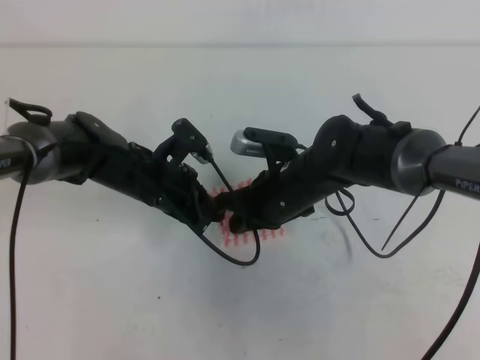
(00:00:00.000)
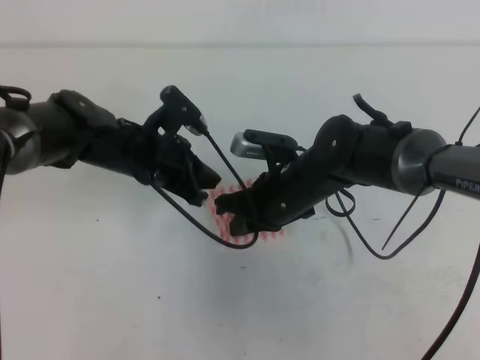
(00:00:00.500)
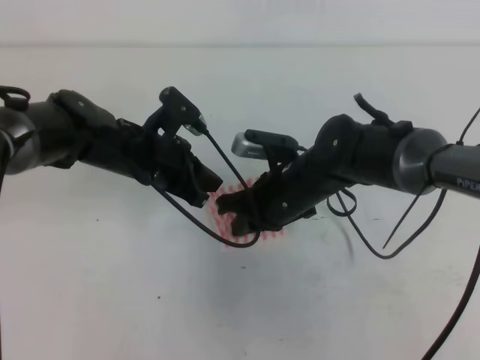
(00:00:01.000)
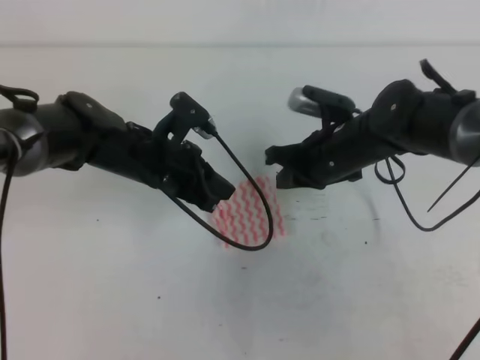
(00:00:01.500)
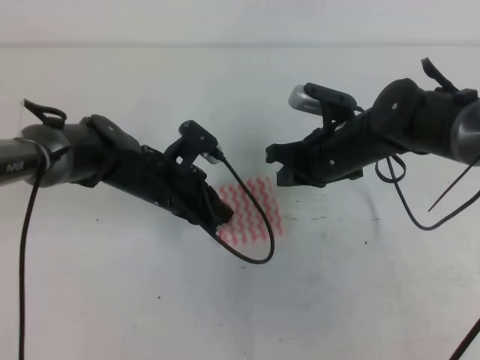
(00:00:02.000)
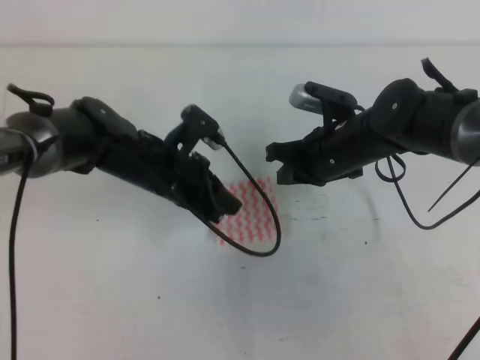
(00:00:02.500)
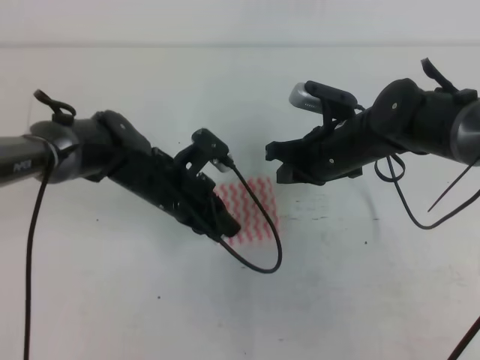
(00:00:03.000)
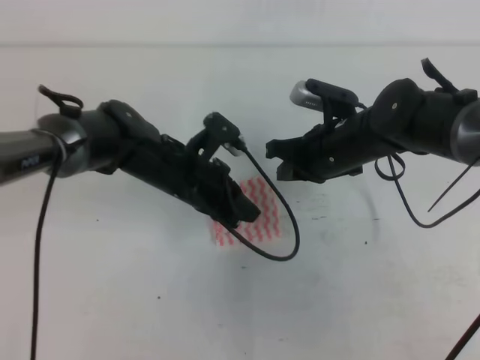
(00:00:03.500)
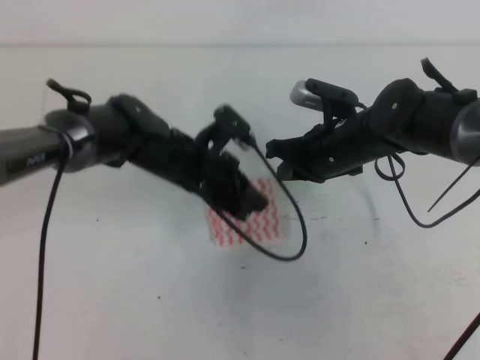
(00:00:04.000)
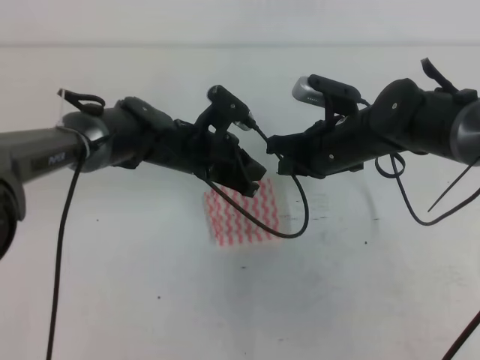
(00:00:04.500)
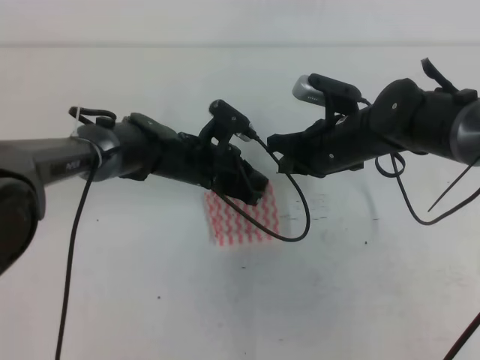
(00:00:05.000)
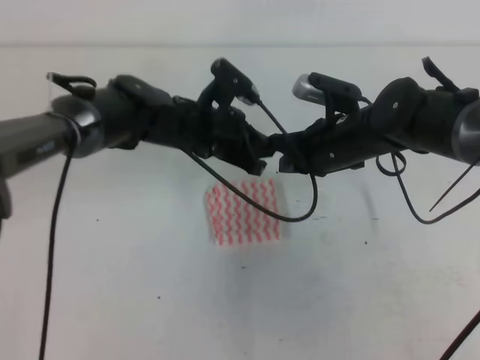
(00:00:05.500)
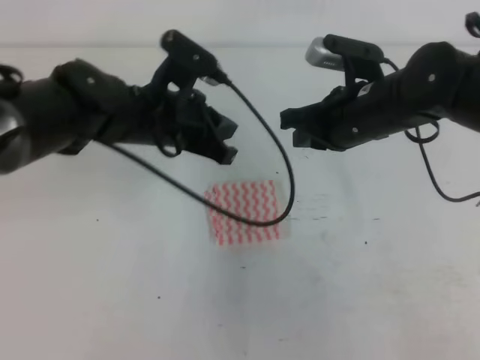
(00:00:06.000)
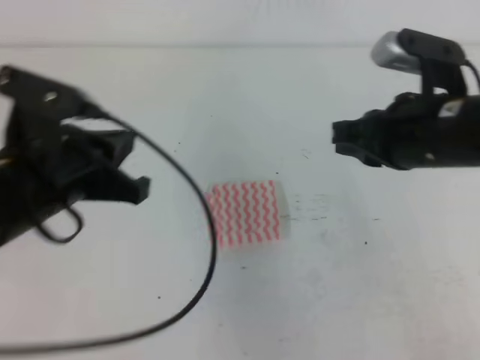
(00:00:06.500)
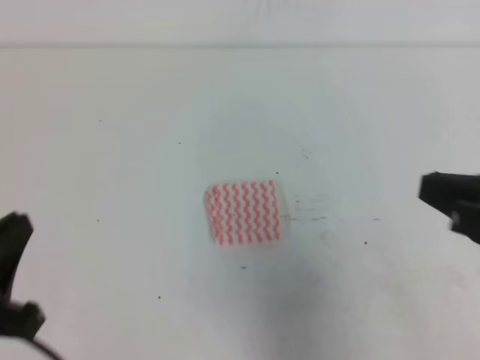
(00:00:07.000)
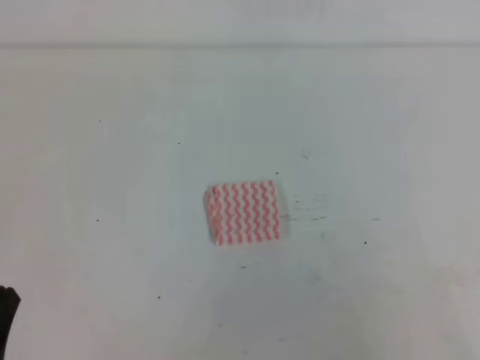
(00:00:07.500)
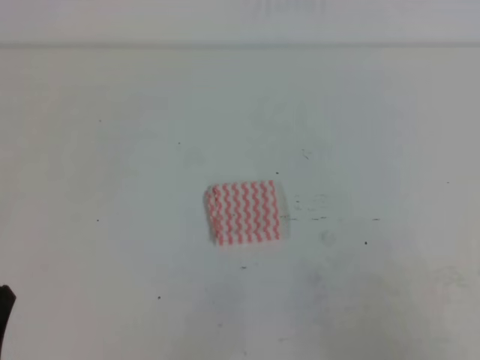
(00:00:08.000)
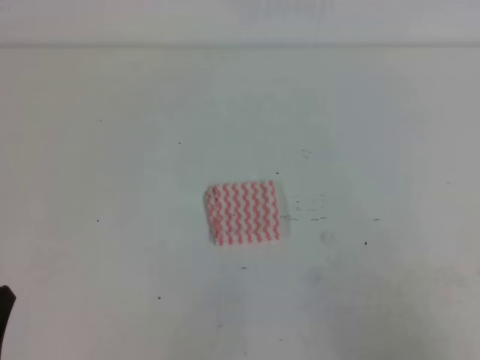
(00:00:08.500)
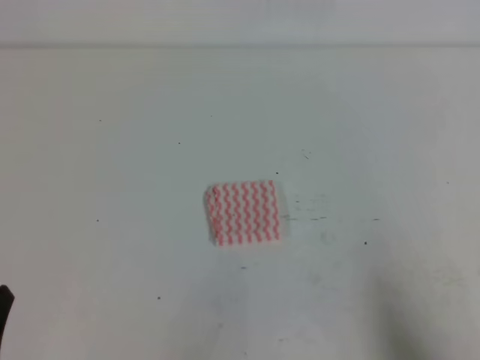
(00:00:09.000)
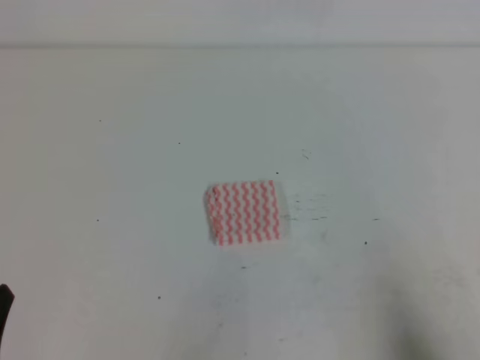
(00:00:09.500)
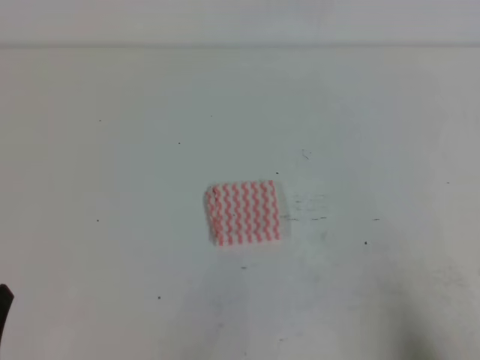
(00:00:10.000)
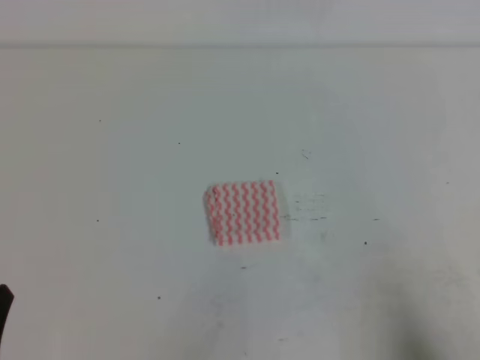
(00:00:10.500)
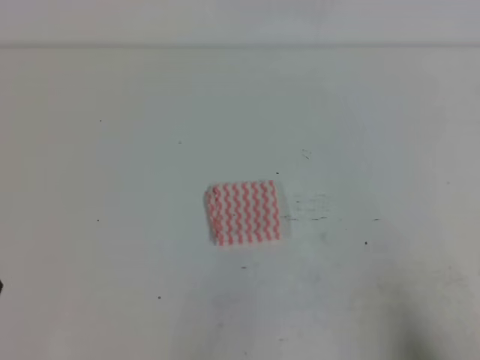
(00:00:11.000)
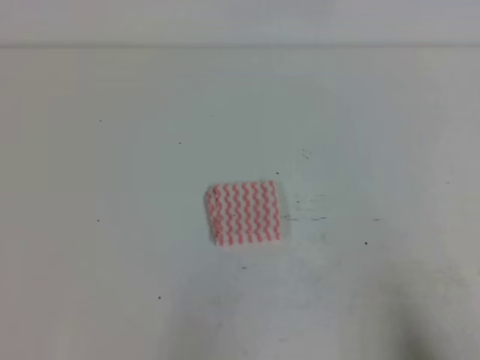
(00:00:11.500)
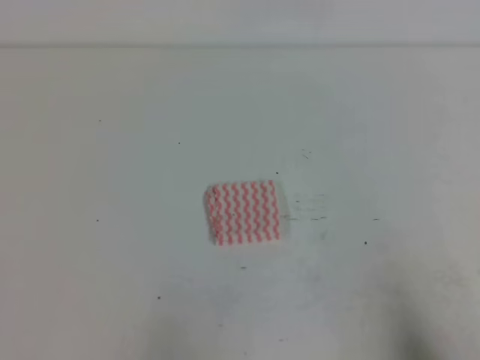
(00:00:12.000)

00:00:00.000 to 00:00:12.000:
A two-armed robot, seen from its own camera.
00:00:00.000 to 00:00:02.000: The right gripper shifts roughly 5 cm to the right.
00:00:02.000 to 00:00:04.000: The grippers make only small movements.
00:00:04.000 to 00:00:06.000: Both grippers travel together upward, approximately 10 cm.
00:00:06.000 to 00:00:08.000: The right gripper travels backward and to the right by approximately 35 cm. Meanwhile the left gripper travels backward and to the left by some 35 cm.
00:00:08.000 to 00:00:10.000: The right gripper heads downward, covering roughly 5 cm.
